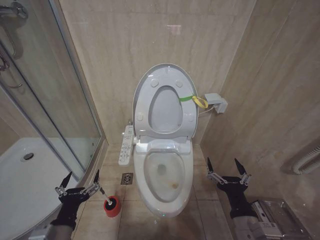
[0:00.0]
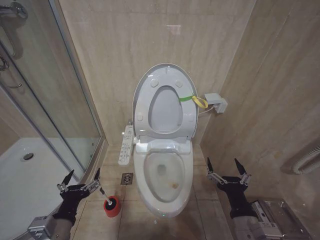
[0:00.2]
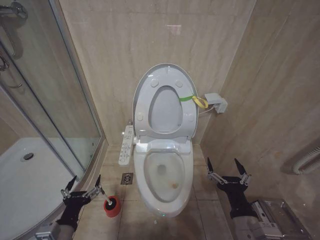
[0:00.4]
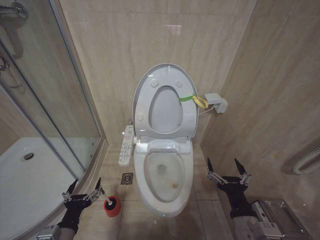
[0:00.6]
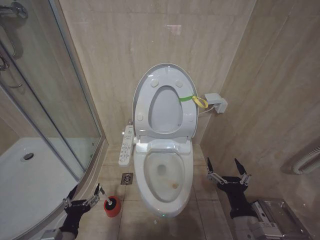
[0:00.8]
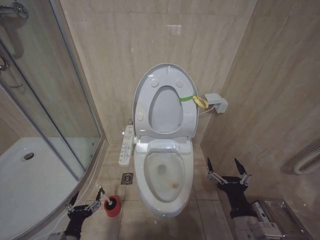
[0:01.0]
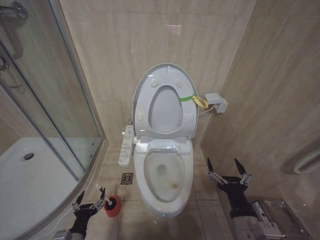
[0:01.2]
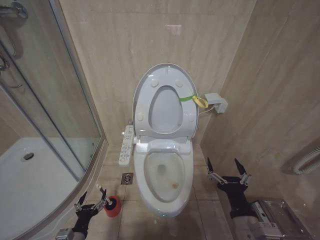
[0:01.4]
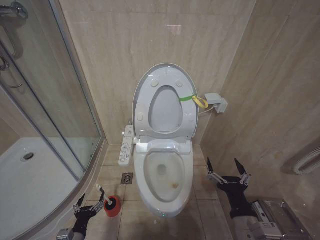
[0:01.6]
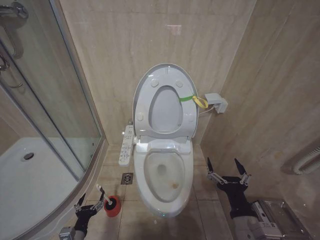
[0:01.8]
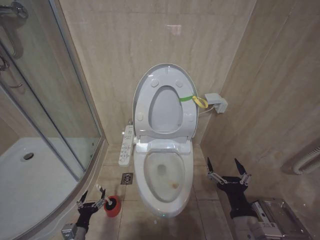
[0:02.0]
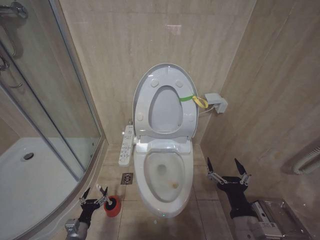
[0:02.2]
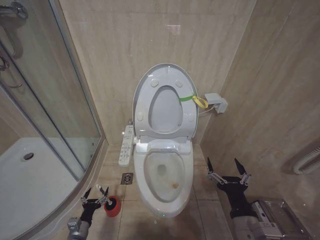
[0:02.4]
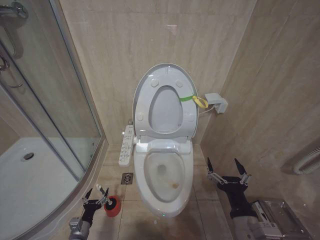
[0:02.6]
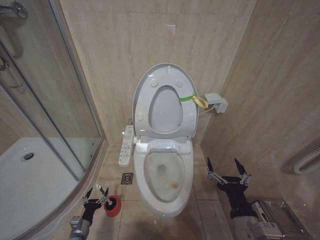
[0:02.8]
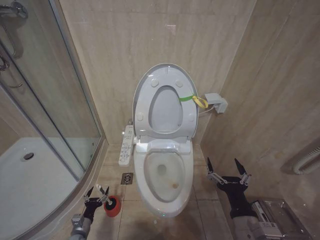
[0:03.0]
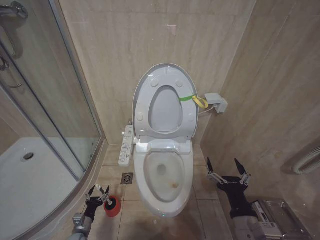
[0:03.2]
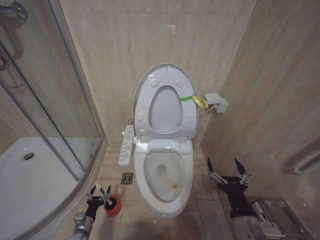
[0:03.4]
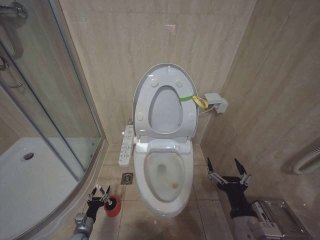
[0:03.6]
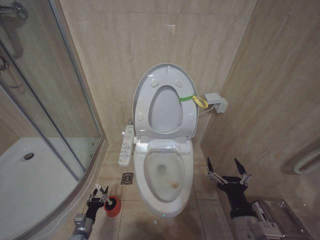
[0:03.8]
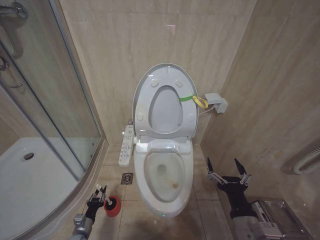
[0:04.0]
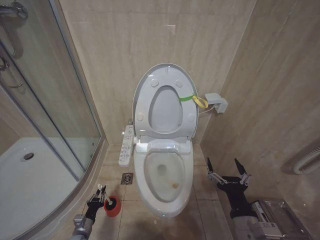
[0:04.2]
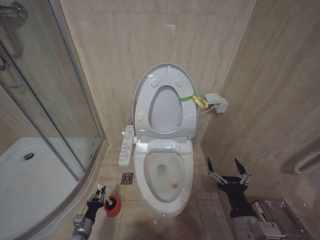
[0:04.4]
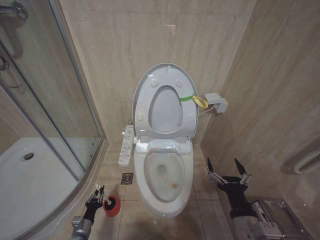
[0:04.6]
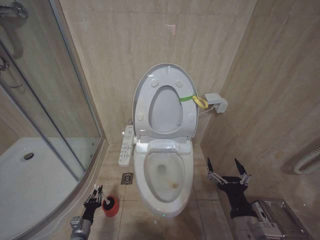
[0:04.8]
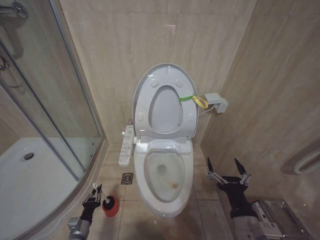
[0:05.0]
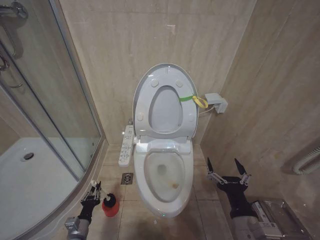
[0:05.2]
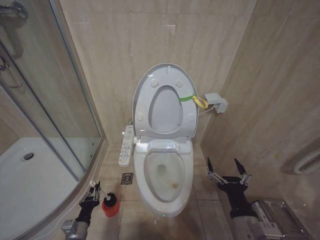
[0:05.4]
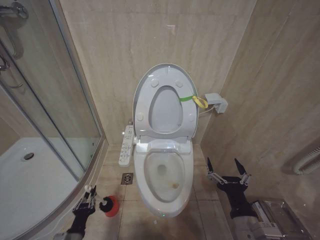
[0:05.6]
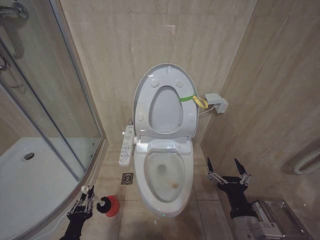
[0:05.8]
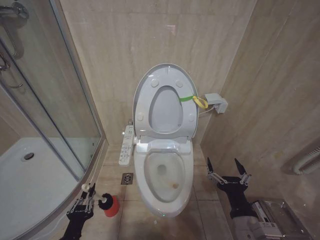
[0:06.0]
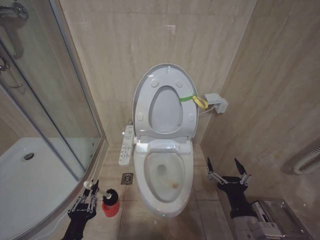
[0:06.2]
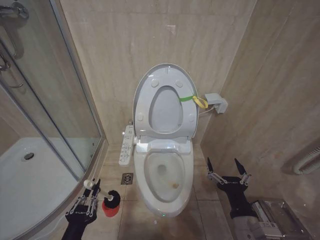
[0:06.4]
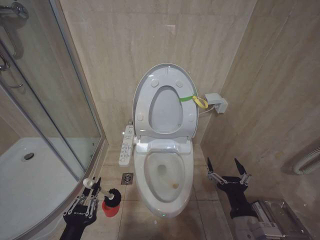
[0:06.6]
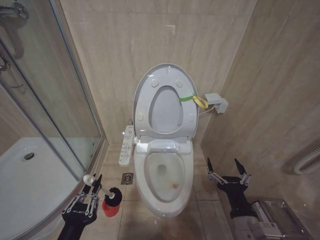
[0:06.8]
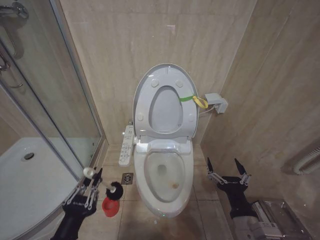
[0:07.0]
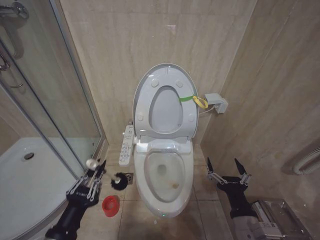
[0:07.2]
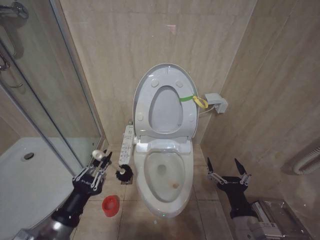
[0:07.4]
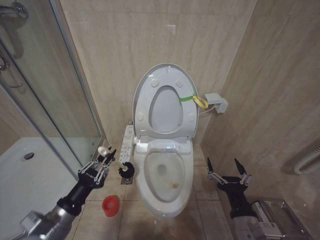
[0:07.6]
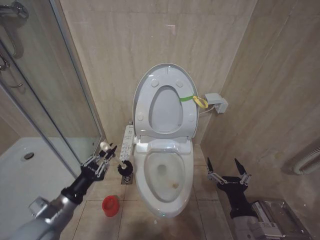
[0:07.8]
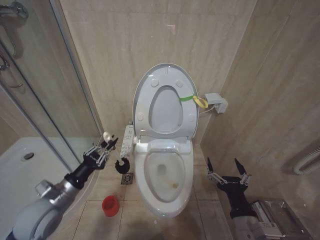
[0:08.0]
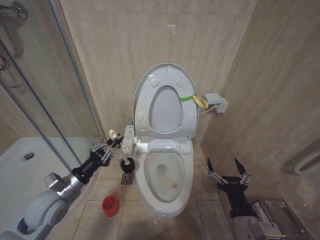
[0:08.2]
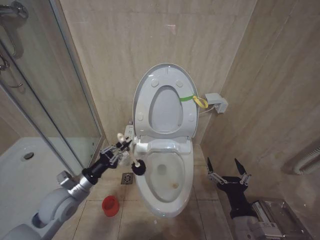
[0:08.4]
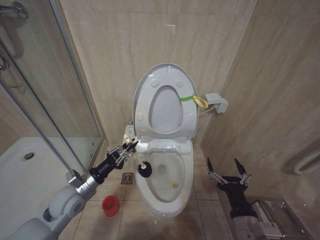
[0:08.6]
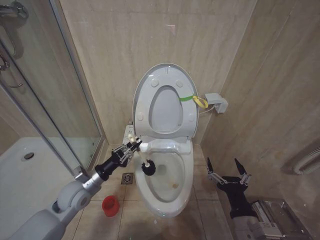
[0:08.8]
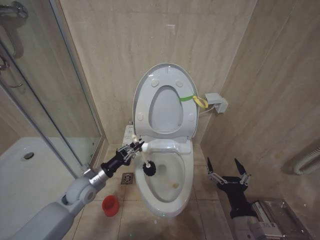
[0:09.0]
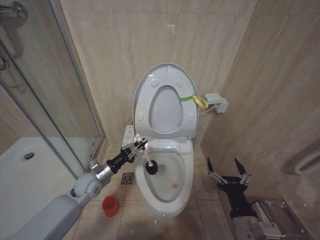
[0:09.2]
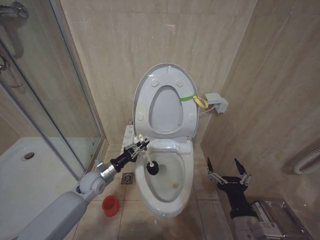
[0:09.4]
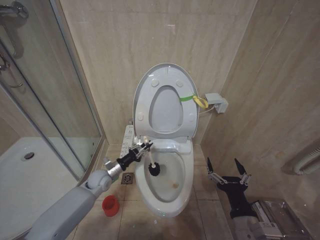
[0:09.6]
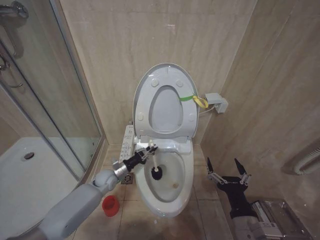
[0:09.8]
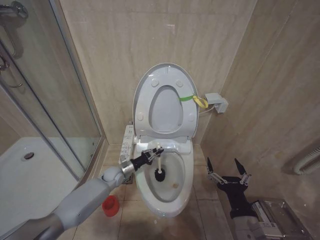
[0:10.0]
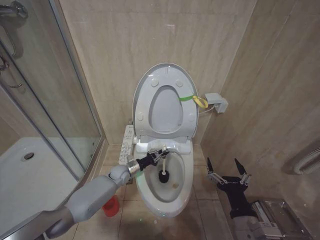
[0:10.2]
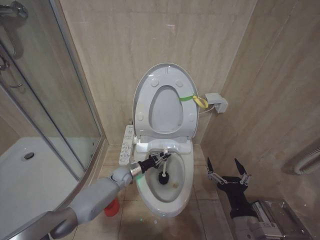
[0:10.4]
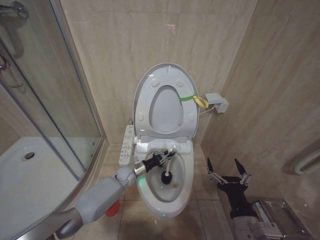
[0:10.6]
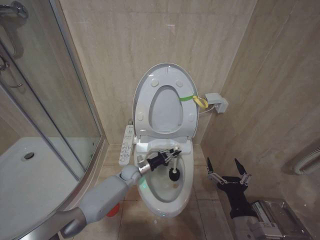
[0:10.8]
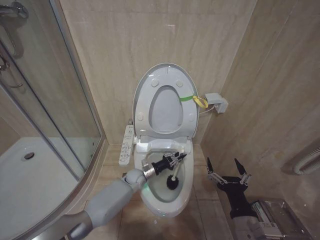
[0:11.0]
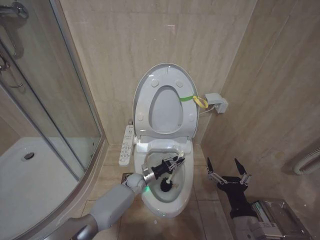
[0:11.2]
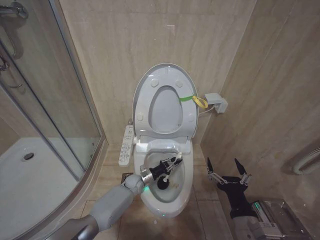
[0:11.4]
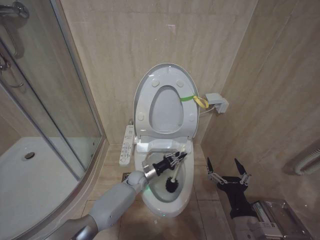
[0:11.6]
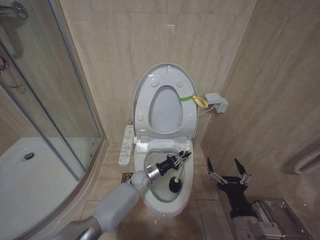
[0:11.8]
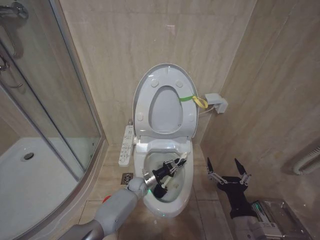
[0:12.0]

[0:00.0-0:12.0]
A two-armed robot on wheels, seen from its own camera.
Task of the whole recording: Open the toilet lid, clean the toilet bowl with a toilet brush, close the toilet lid, and flush.
0:00.0 to 0:01.6: The left gripper moves downward, roughly 20 cm.
0:01.6 to 0:03.0: The left gripper moves downward and forward, approximately 15 cm.
0:04.4 to 0:06.0: The left gripper moves upward and backward, some 20 cm.
0:06.0 to 0:07.6: The left gripper shifts some 15 cm upward.
0:07.6 to 0:09.0: The left gripper travels forward by approximately 20 cm.
0:09.0 to 0:10.4: The left gripper goes roughly 20 cm forward, downward and to the right.
0:10.4 to 0:12.0: The left gripper moves to the right and downward, roughly 10 cm.

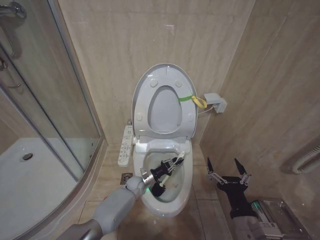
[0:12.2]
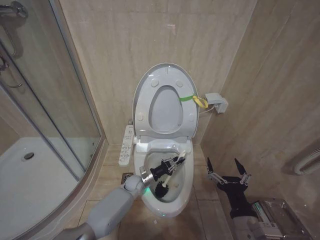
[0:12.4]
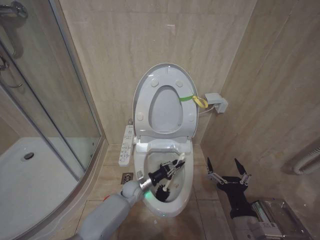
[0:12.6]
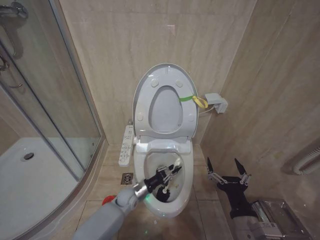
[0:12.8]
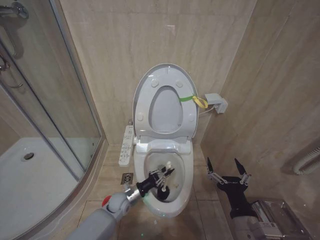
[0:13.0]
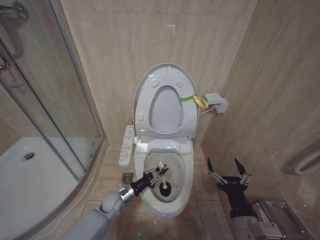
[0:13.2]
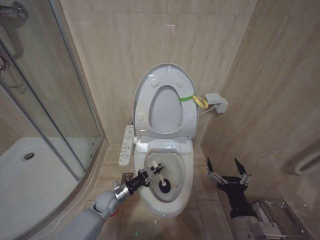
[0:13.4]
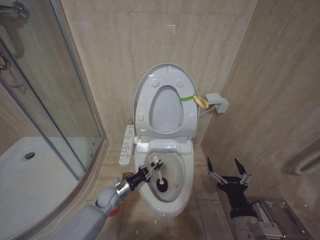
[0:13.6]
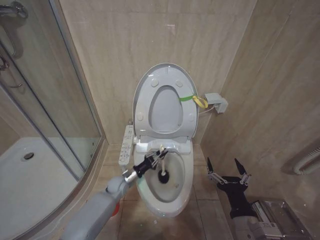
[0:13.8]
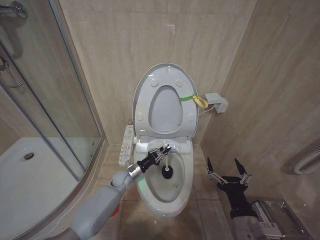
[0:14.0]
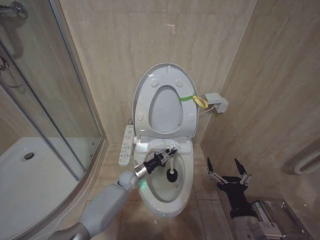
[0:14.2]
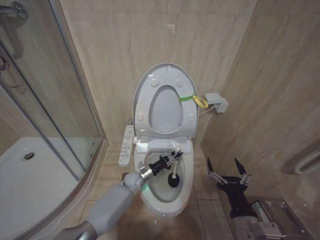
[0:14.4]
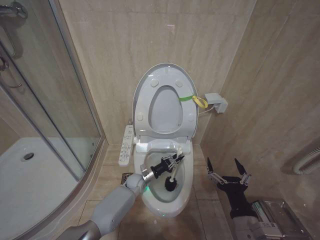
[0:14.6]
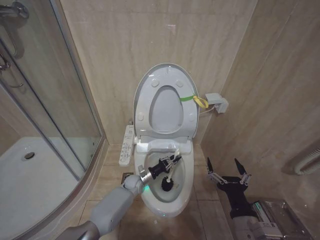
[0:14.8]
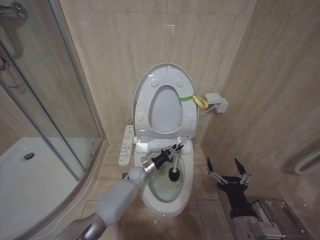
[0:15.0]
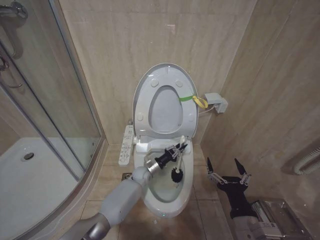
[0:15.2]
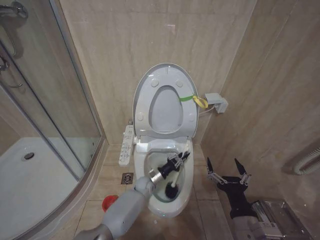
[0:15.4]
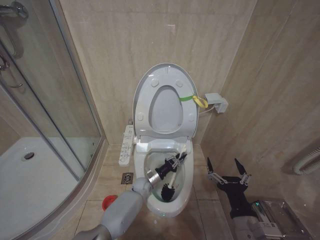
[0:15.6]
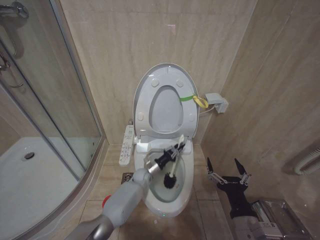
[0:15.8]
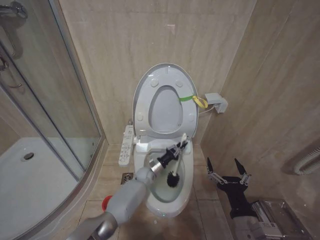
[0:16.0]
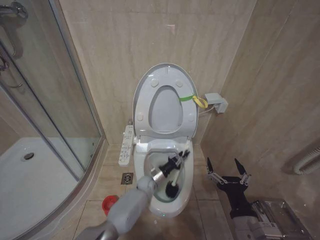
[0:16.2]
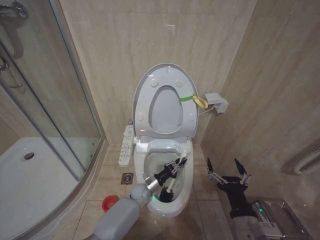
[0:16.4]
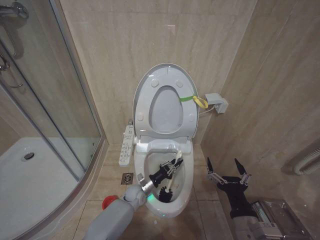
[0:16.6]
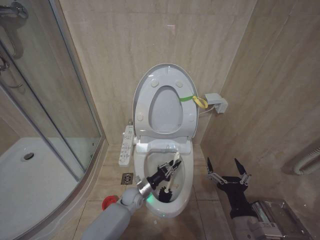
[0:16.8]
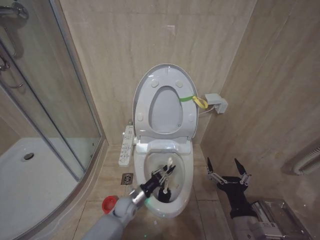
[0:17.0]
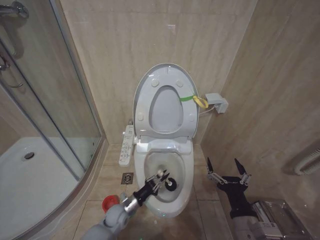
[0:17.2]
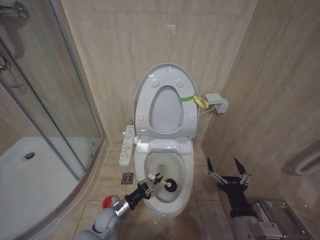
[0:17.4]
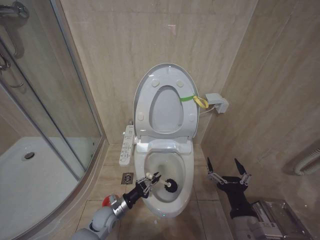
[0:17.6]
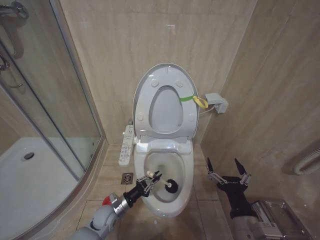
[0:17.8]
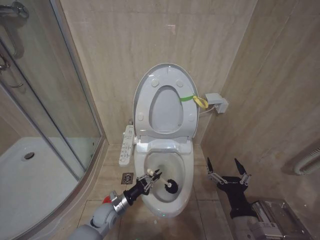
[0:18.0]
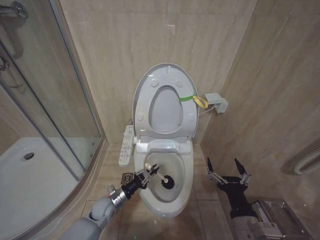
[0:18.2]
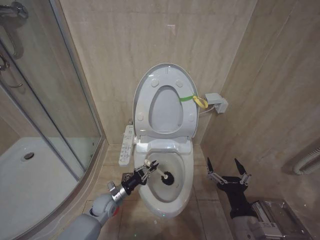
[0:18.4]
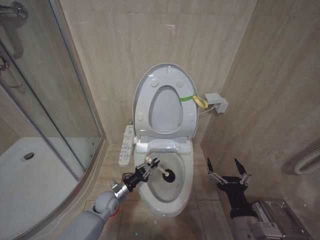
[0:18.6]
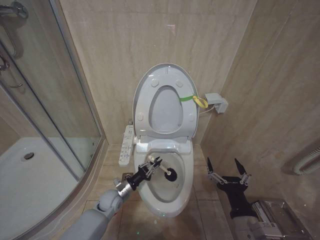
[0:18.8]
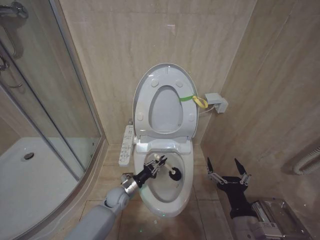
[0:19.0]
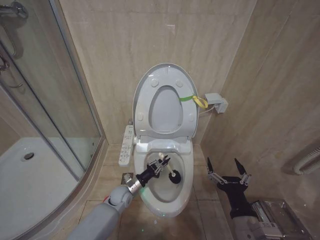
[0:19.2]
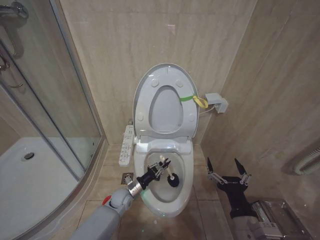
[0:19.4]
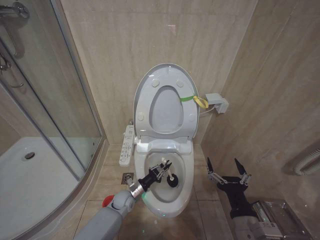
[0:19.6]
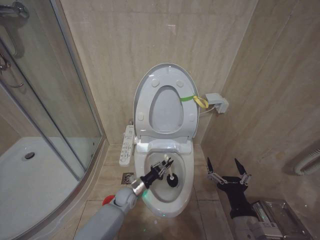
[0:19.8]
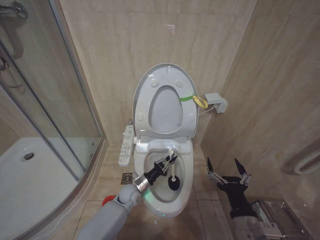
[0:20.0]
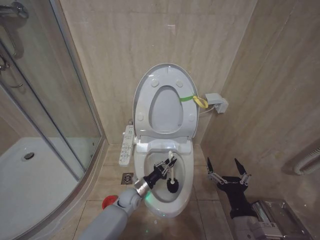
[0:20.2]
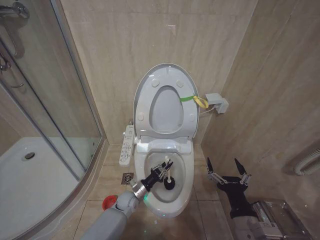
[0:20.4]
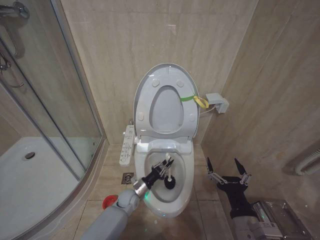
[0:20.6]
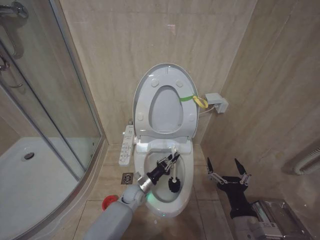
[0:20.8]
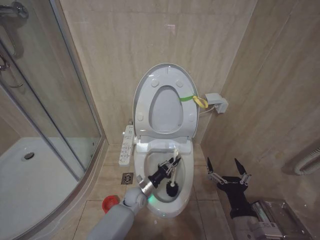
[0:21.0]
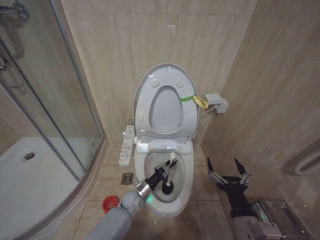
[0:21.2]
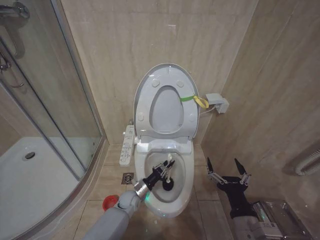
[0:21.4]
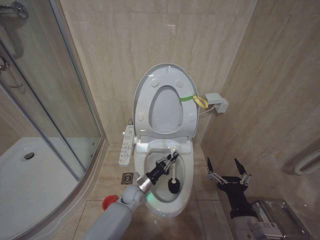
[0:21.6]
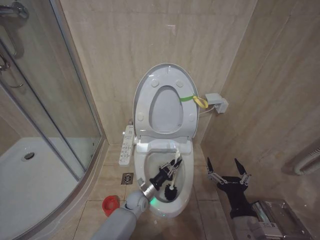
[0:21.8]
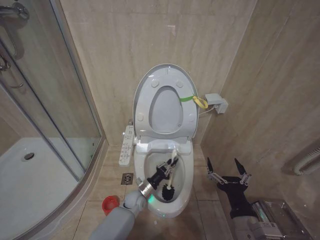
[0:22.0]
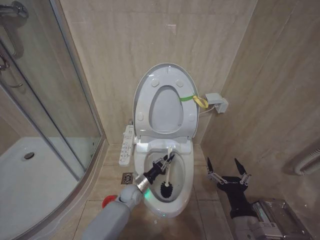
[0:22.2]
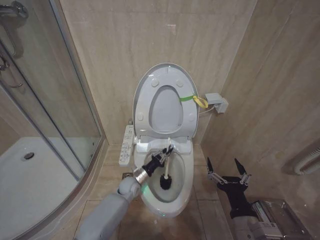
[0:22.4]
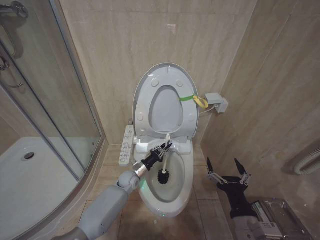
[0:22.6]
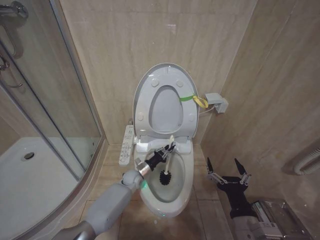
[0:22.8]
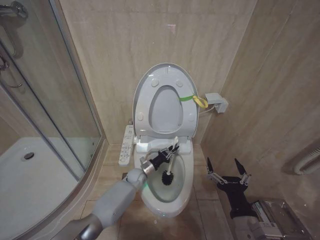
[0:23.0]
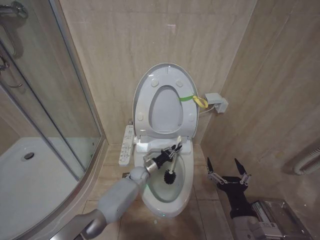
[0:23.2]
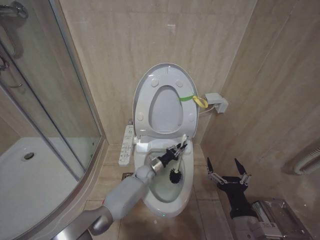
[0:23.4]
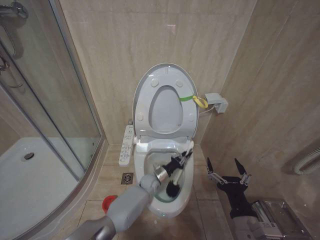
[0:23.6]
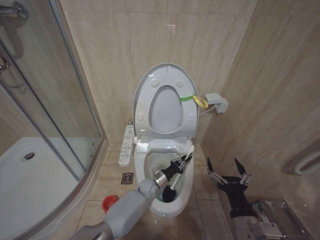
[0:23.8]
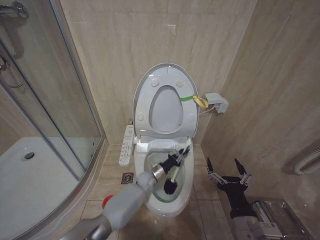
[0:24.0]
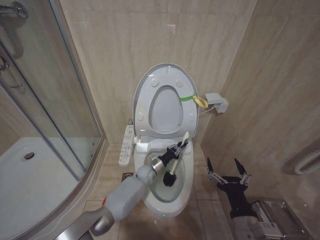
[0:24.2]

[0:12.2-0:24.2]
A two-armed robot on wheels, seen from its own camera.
Task of the whole recording: Open the toilet lid, clean the toilet bowl with a toilet brush, close the toilet lid, and flush.
0:12.2 to 0:13.8: The left gripper shifts about 10 cm to the left and upward.
0:13.8 to 0:15.2: The left gripper heads to the right and forward, covering roughly 15 cm.
0:15.2 to 0:16.6: The left gripper goes roughly 10 cm backward and downward.
0:16.6 to 0:18.2: The left gripper shifts about 15 cm to the left and backward.
0:18.2 to 0:19.8: The left gripper heads to the right and forward, covering roughly 10 cm.
0:19.8 to 0:21.2: The grippers make only small movements.
0:21.2 to 0:22.6: The left gripper travels upward and forward by some 10 cm.
0:22.6 to 0:24.2: The left gripper heads to the right, covering approximately 10 cm.
